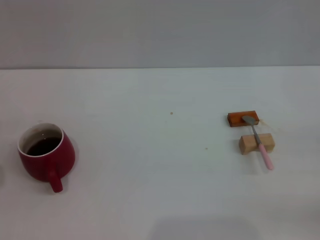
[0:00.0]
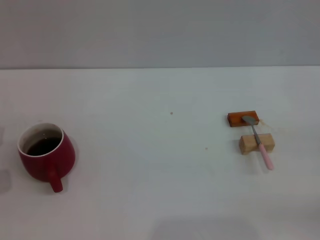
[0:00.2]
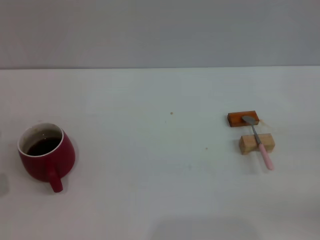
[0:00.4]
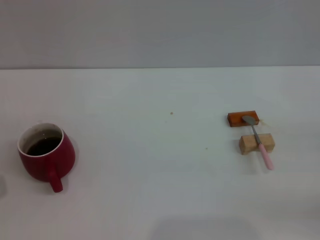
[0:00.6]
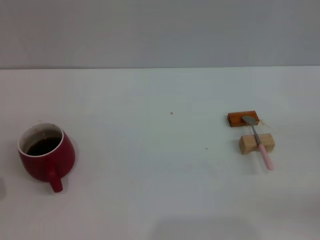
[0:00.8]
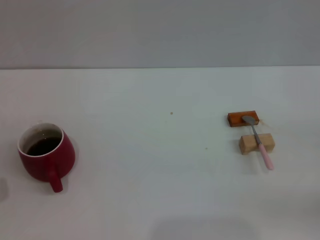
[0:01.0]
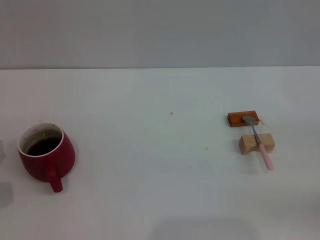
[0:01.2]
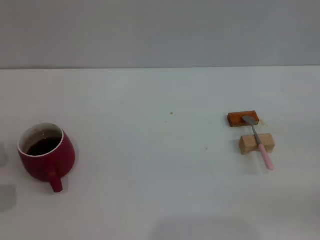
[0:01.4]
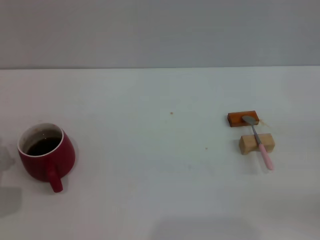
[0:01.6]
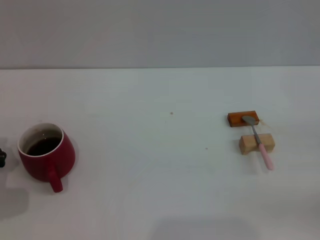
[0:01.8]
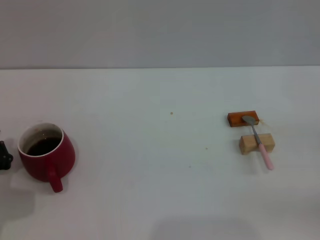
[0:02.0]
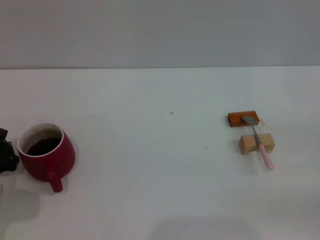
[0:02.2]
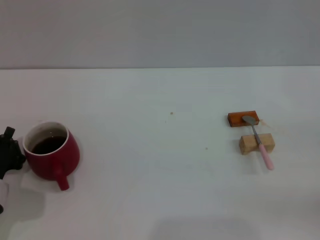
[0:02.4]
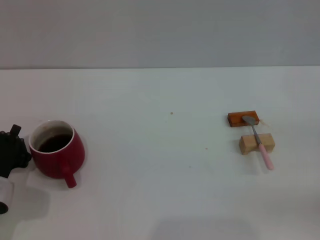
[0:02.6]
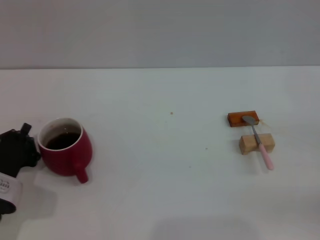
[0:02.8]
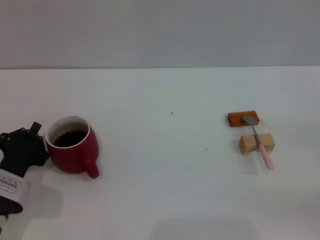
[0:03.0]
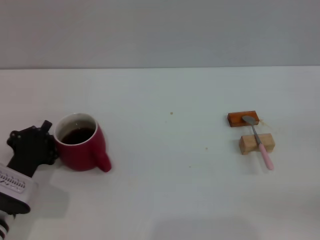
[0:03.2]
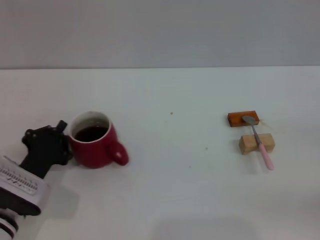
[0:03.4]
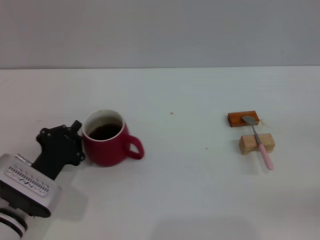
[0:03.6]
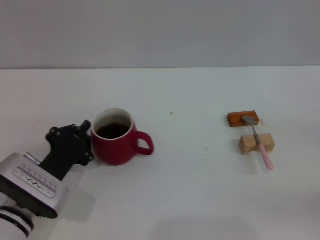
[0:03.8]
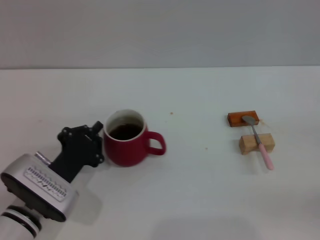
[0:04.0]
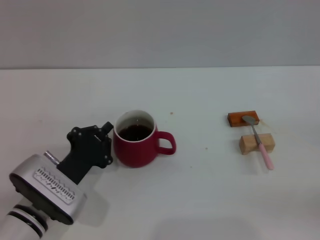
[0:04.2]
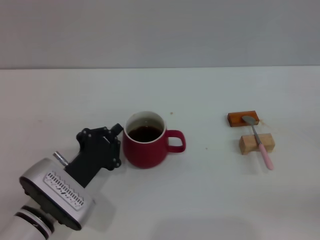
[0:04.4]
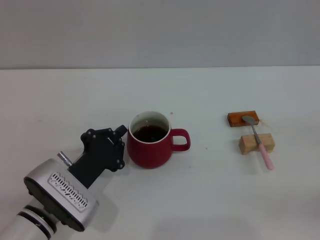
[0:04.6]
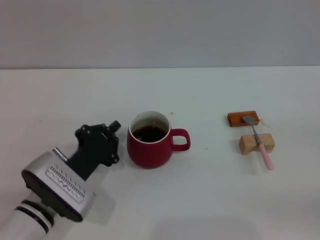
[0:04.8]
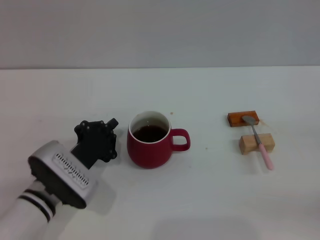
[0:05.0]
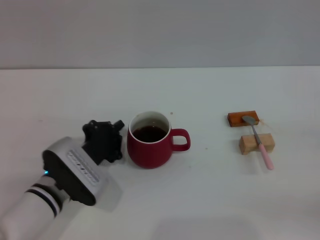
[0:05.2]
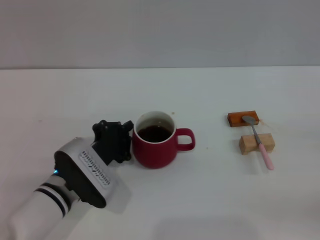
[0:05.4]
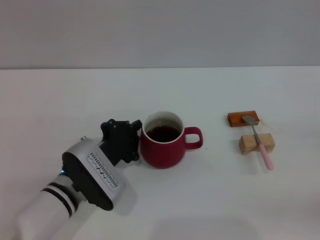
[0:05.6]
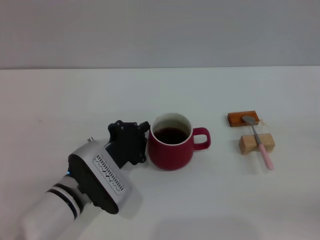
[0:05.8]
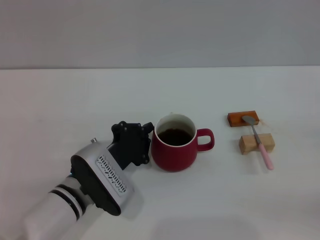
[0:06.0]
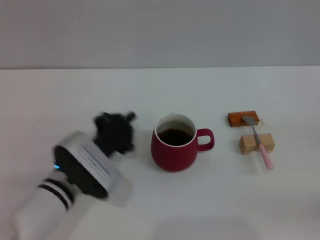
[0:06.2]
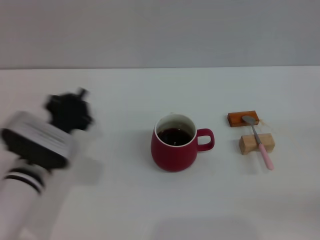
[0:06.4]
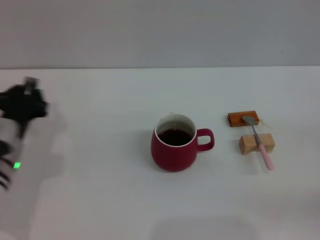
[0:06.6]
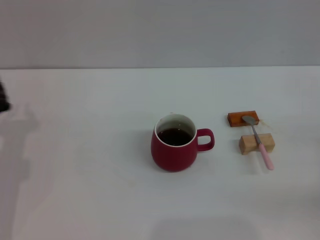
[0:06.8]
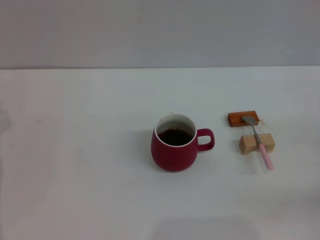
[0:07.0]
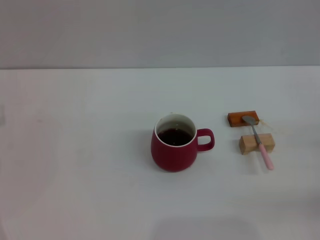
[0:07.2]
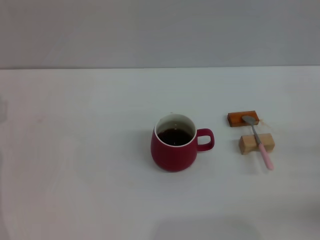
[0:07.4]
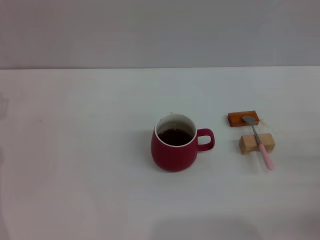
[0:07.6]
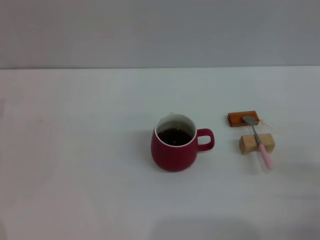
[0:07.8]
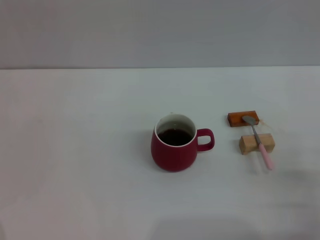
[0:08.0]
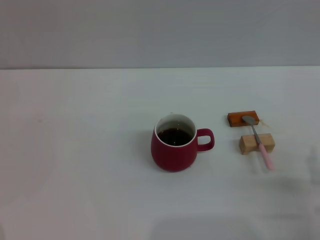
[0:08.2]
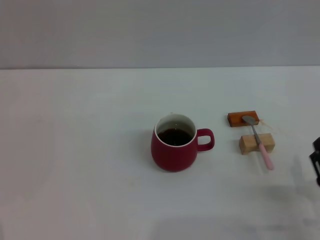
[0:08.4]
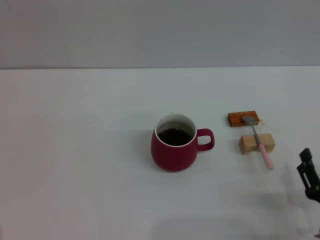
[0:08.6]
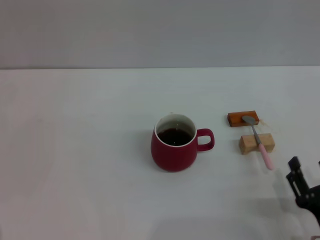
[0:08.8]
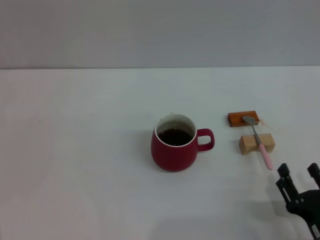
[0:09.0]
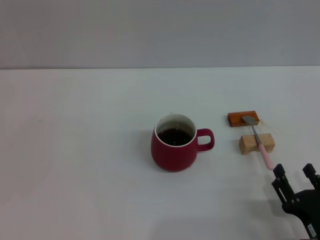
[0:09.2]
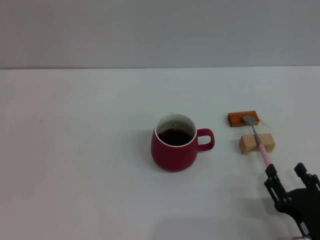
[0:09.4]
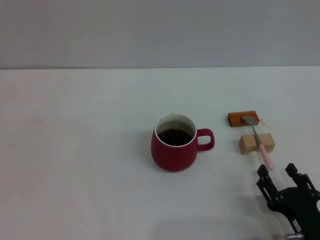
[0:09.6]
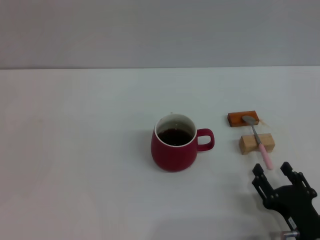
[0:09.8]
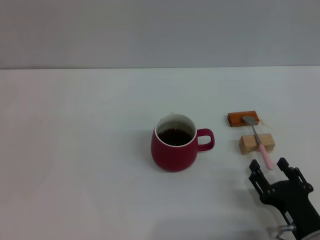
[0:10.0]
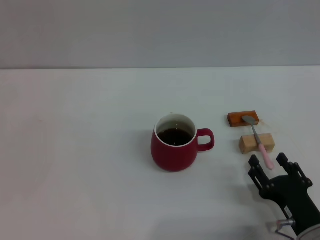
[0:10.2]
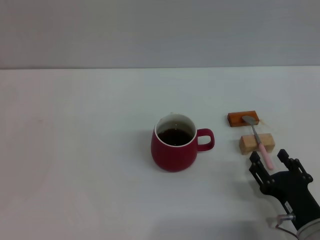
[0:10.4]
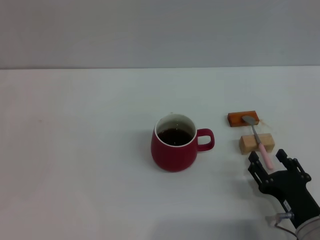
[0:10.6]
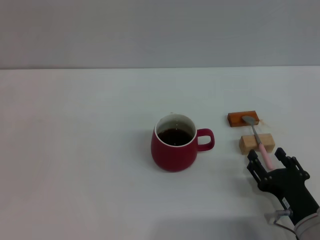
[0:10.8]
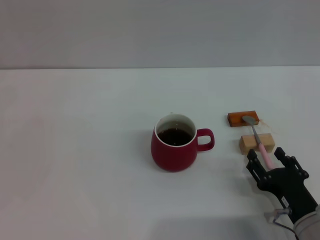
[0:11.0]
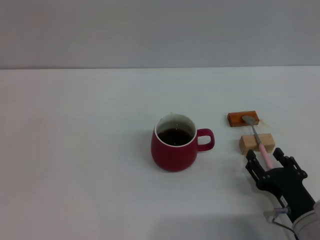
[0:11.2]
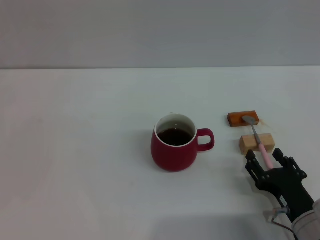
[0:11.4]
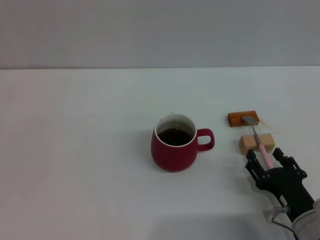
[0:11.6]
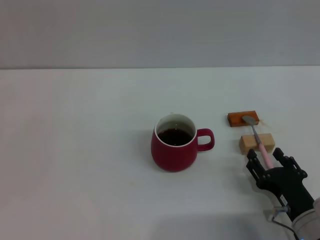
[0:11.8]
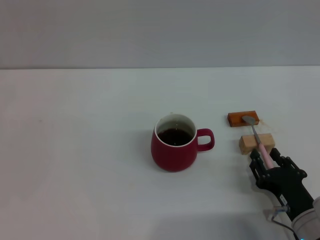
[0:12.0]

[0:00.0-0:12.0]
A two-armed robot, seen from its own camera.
Task of the whole recording: Move the red cup to the center, lift the pink spoon, stir it three times in the cup, and put the spoon into the cup.
Step, 0:00.0 to 0:06.0: Move the cup with coffee to the center of view with the left gripper.
0:01.6 to 0:03.0: There are only small adjustments of the grippers.
0:03.0 to 0:04.4: The left gripper travels to the right by roughly 10 cm.
0:04.4 to 0:06.0: The left gripper shifts by about 5 cm.
0:06.0 to 0:07.6: The right gripper moves to the left, roughly 10 cm. The left gripper heads to the left, covering about 20 cm, and opens its fingers.
0:07.6 to 0:09.0: The right gripper goes roughly 15 cm to the left and backward.
0:09.0 to 0:10.4: The right gripper moves approximately 5 cm.
0:10.4 to 0:12.0: The grippers make only small movements.

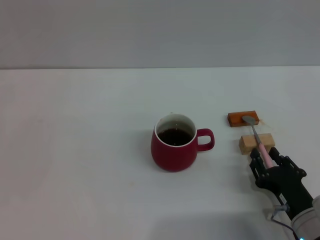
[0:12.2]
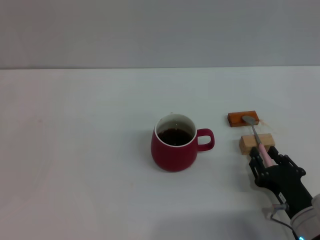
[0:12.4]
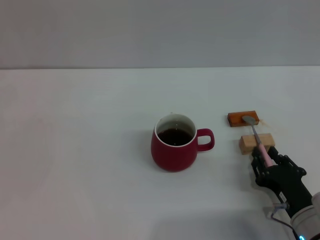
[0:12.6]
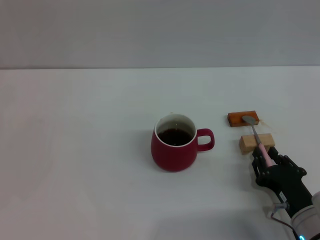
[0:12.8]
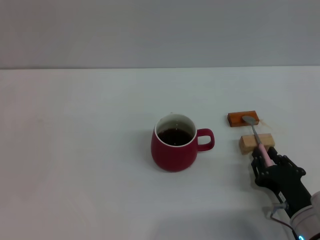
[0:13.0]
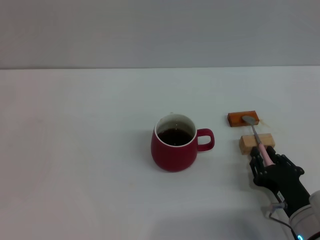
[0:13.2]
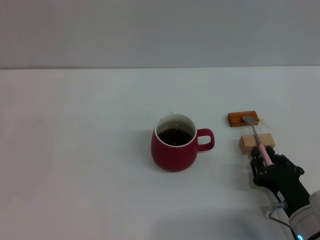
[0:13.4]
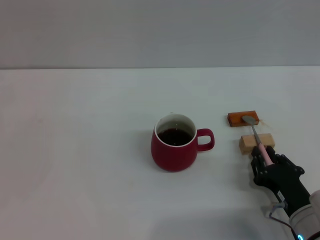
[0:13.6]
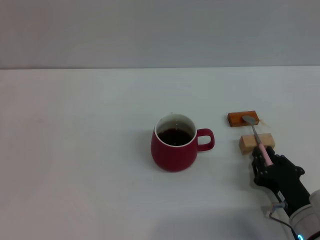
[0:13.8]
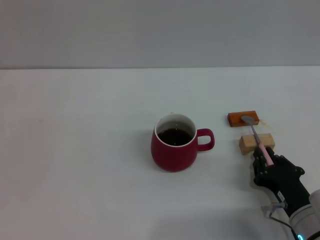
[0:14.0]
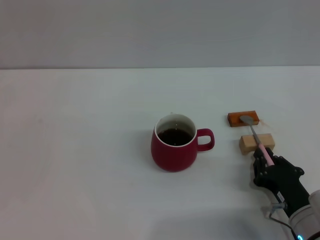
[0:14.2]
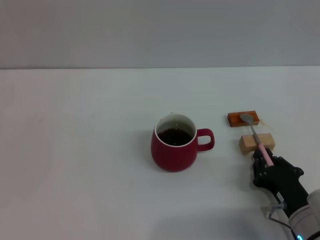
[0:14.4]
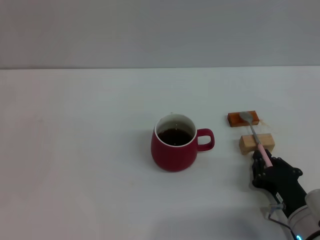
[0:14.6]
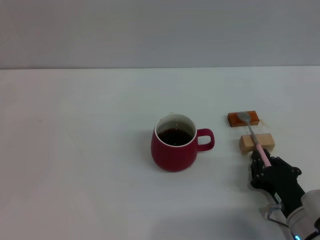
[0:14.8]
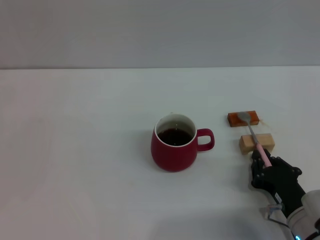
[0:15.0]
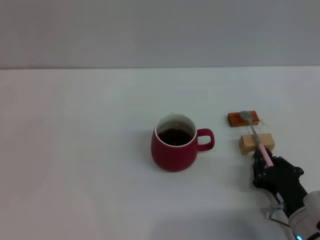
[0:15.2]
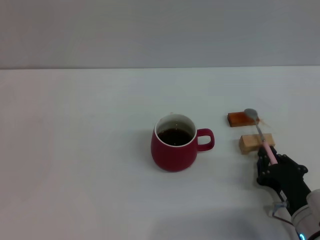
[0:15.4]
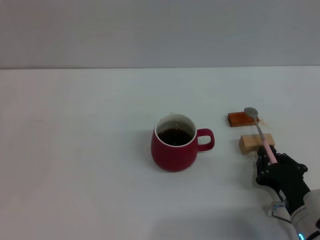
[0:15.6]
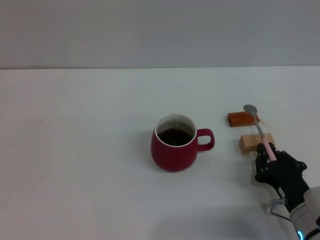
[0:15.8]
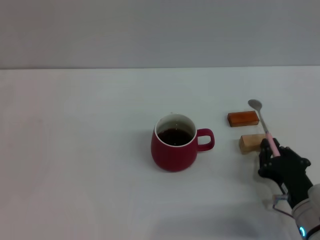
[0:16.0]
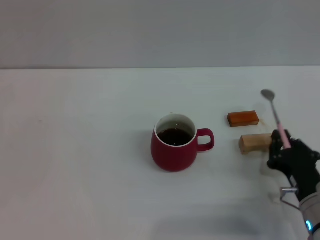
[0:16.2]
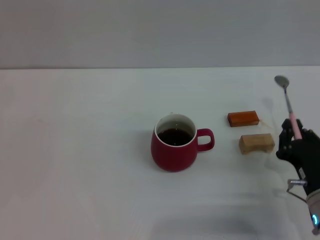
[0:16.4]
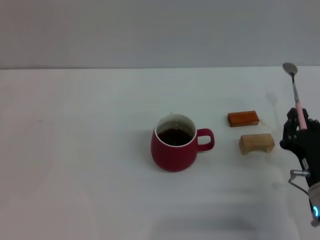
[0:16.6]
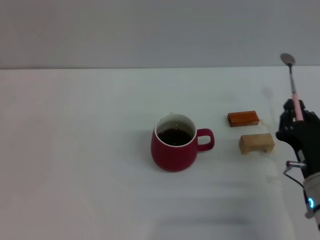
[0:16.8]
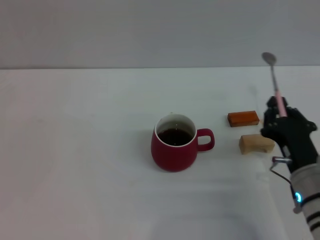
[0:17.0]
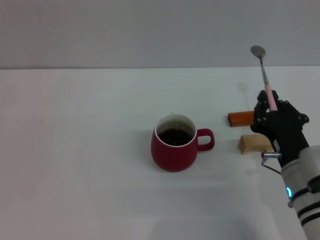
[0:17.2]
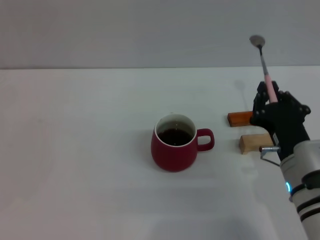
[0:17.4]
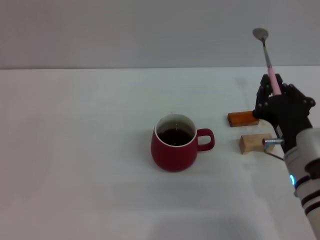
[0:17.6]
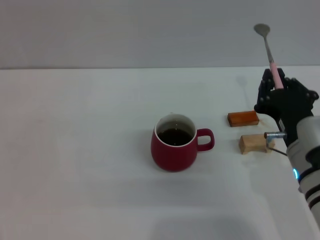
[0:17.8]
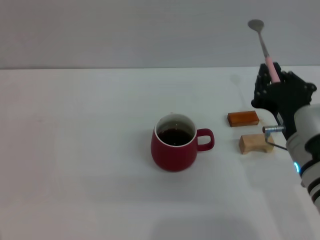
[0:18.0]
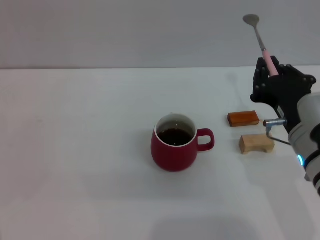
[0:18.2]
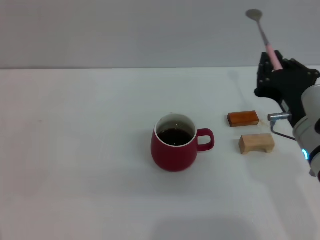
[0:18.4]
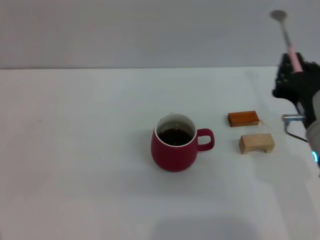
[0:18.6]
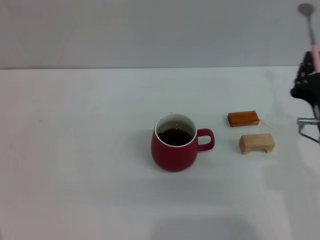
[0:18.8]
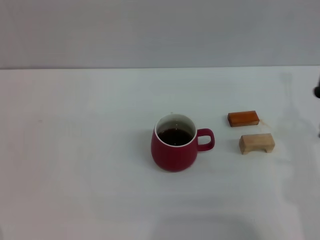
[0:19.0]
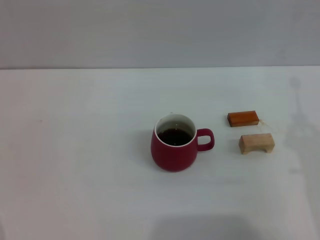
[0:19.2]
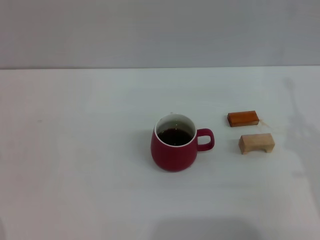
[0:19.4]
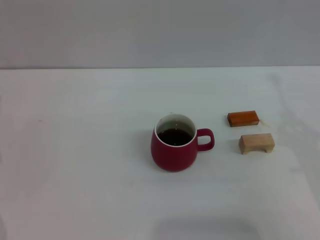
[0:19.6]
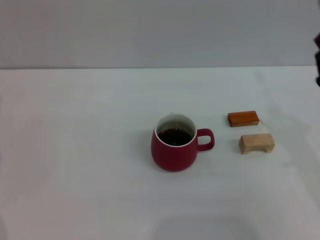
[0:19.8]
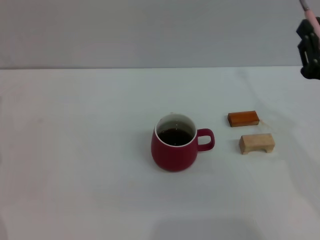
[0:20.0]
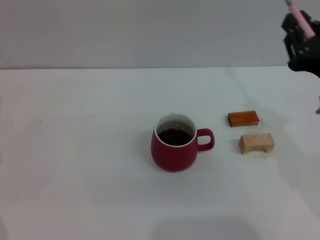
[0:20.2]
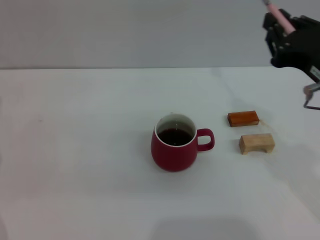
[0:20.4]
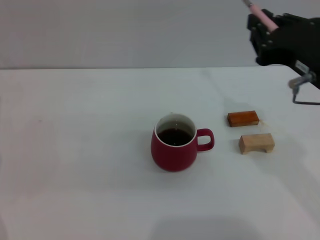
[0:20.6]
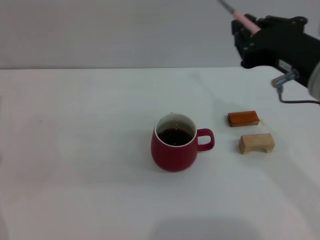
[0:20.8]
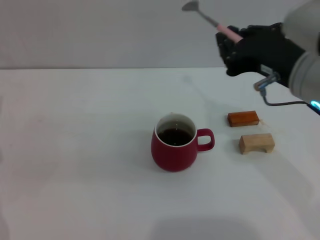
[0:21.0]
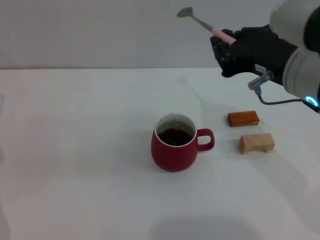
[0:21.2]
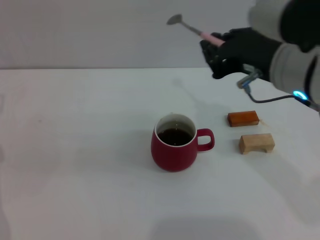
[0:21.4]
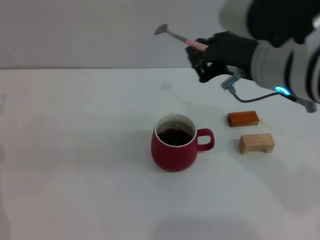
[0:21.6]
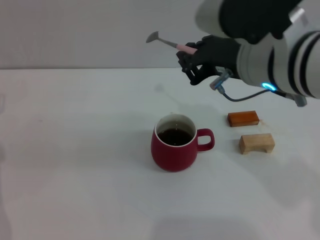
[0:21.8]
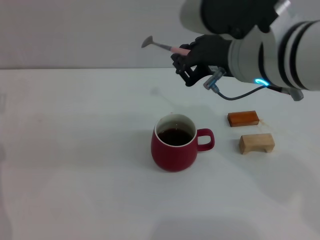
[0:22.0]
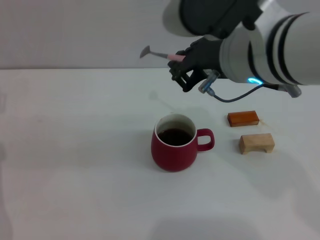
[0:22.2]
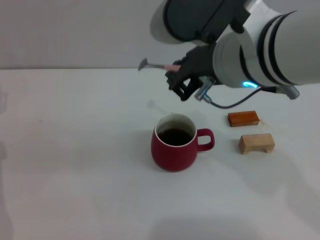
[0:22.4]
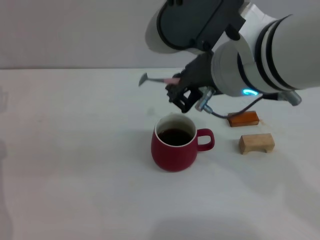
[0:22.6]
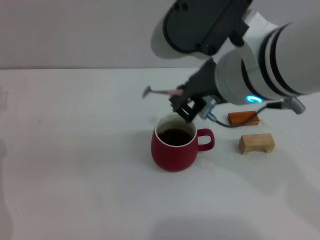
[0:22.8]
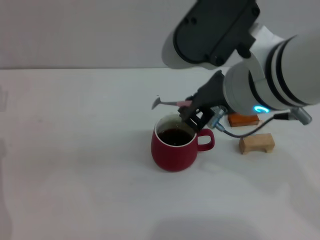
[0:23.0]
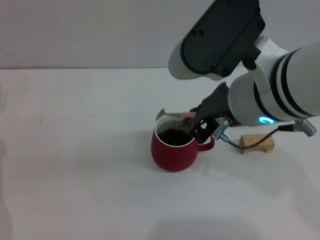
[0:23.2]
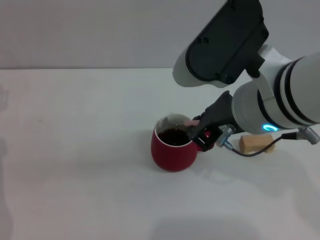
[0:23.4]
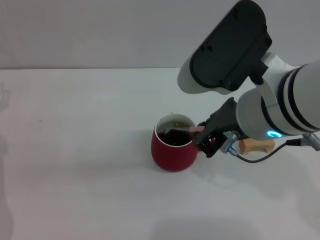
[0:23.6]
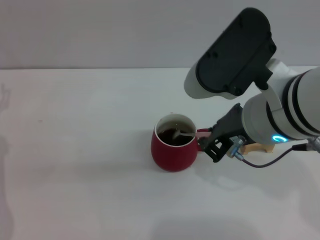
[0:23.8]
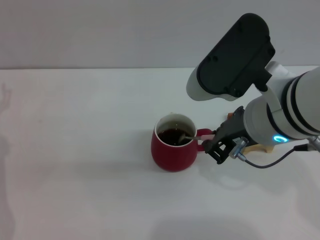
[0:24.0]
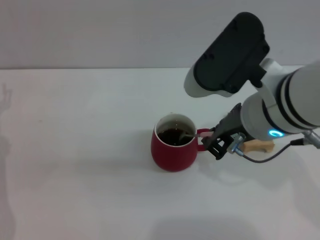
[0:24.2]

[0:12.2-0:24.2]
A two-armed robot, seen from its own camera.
Task of the whole recording: Move the red cup to the center, lift the pink spoon, stir it three times in the cup, and put the spoon into the cup.
Step, 0:12.2 to 0:16.8: Pick up the spoon with the right gripper.
0:12.2 to 0:13.8: The right gripper closes its fingers.
0:13.8 to 0:15.2: The two grippers keep their place.
0:15.2 to 0:16.6: The grippers make only small movements.
0:16.6 to 0:18.2: The right gripper travels upward and to the left by some 10 cm.
0:18.2 to 0:19.8: The right gripper heads to the right, covering about 10 cm.
0:19.8 to 0:21.2: The right gripper shifts about 15 cm to the left and upward.
0:21.2 to 0:22.6: The right gripper heads to the left, covering roughly 10 cm.
0:22.6 to 0:24.2: The right gripper moves downward, approximately 5 cm.
